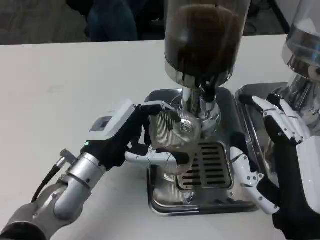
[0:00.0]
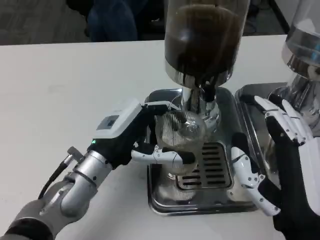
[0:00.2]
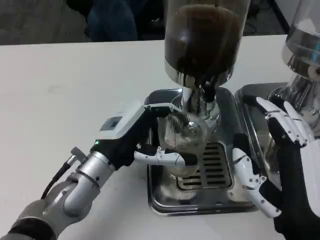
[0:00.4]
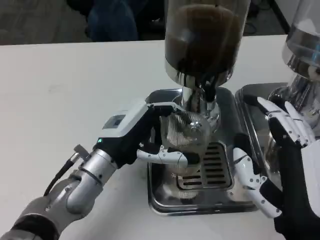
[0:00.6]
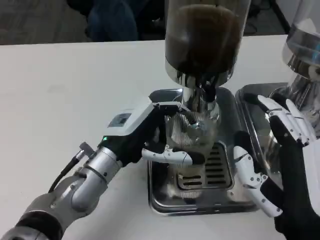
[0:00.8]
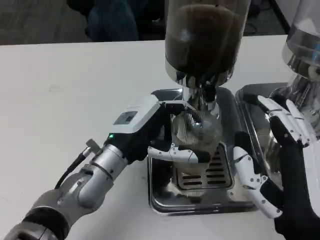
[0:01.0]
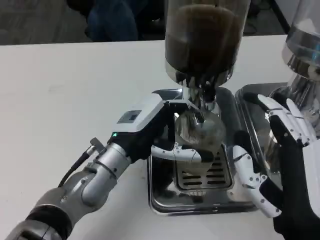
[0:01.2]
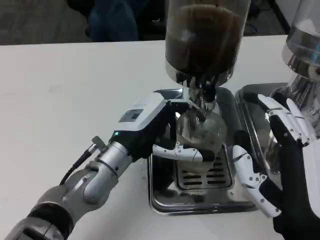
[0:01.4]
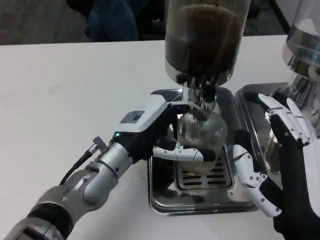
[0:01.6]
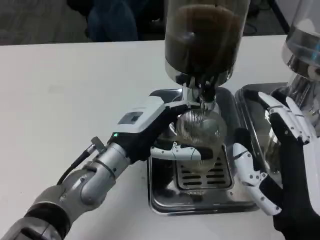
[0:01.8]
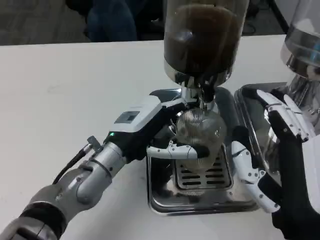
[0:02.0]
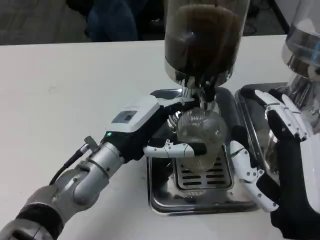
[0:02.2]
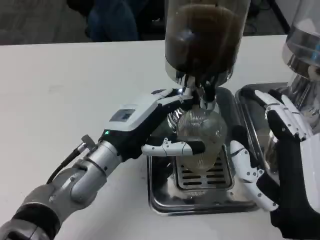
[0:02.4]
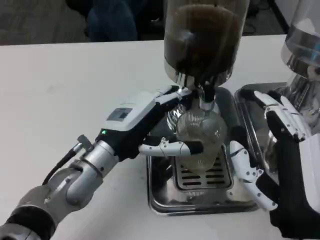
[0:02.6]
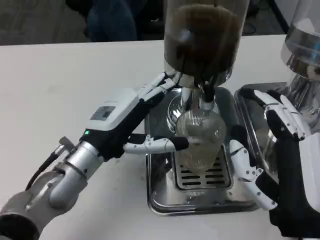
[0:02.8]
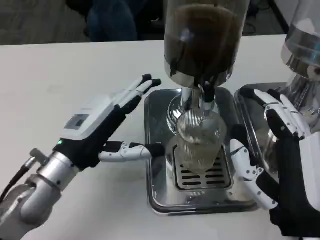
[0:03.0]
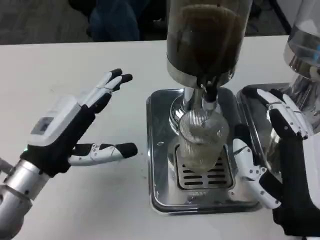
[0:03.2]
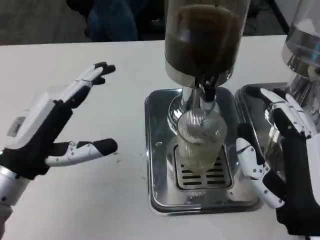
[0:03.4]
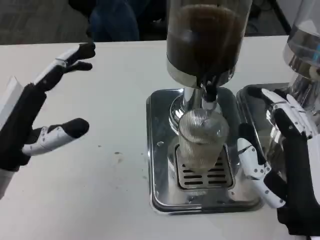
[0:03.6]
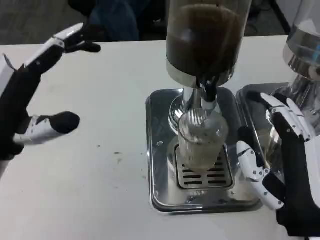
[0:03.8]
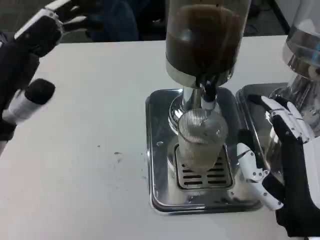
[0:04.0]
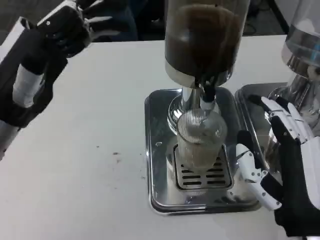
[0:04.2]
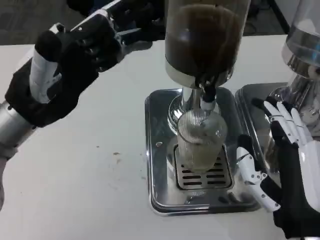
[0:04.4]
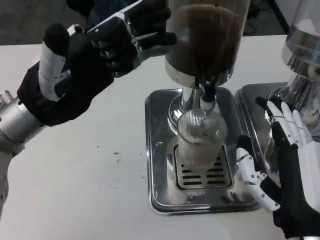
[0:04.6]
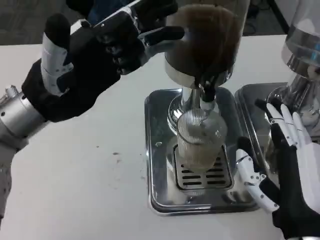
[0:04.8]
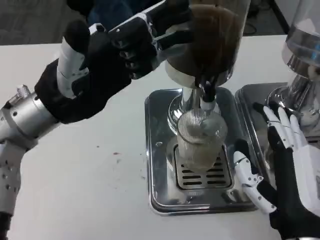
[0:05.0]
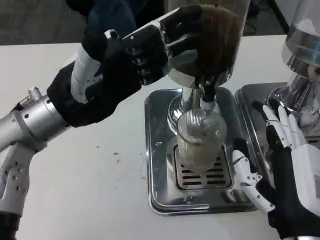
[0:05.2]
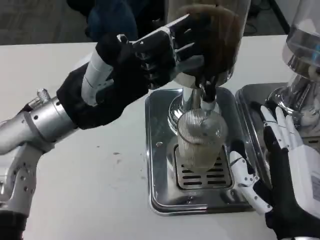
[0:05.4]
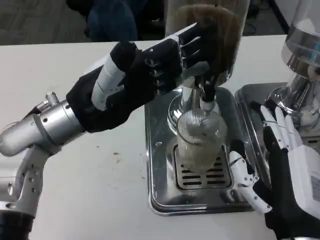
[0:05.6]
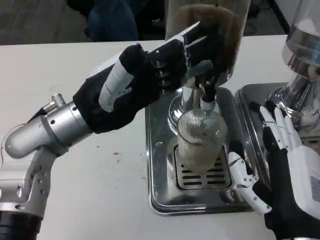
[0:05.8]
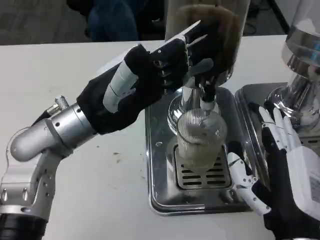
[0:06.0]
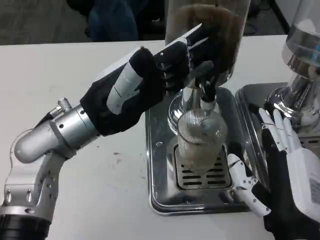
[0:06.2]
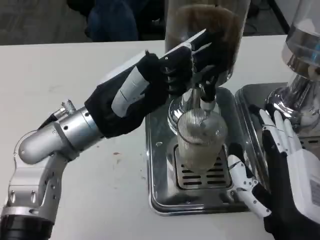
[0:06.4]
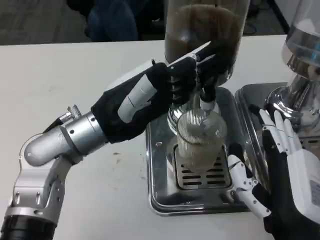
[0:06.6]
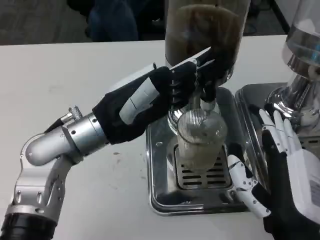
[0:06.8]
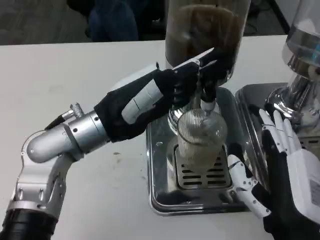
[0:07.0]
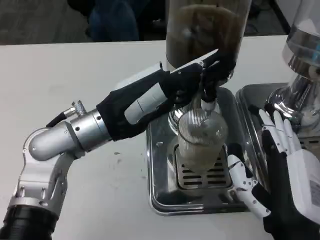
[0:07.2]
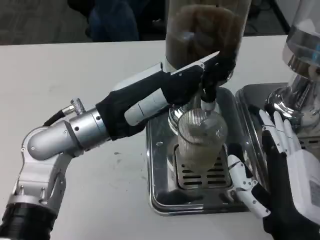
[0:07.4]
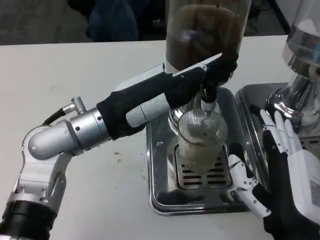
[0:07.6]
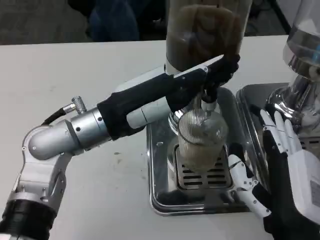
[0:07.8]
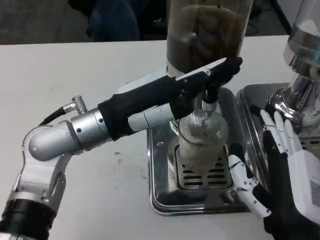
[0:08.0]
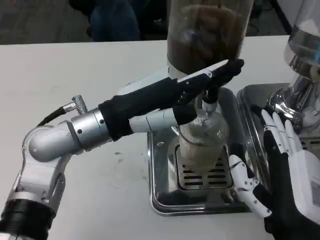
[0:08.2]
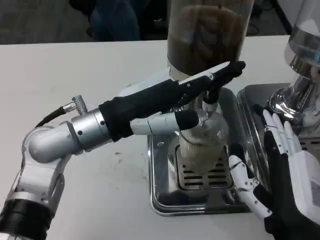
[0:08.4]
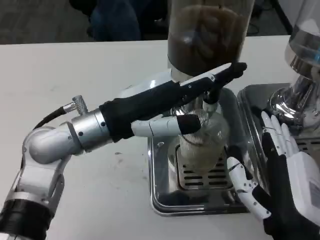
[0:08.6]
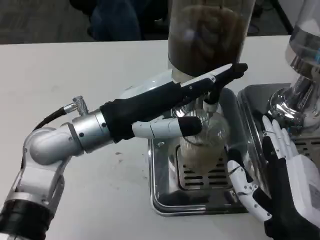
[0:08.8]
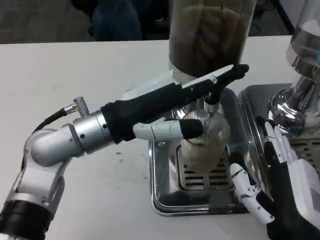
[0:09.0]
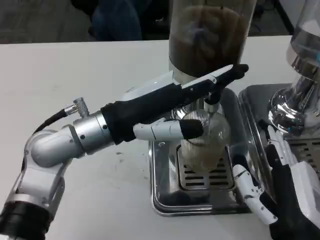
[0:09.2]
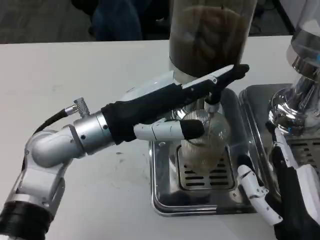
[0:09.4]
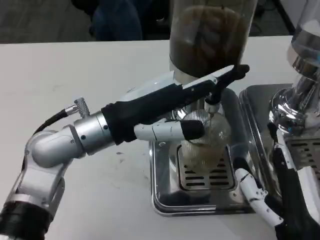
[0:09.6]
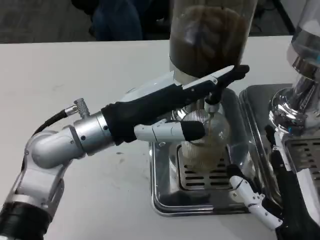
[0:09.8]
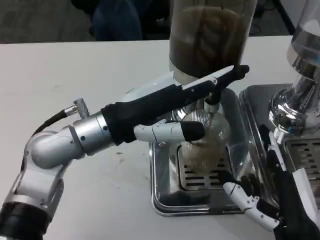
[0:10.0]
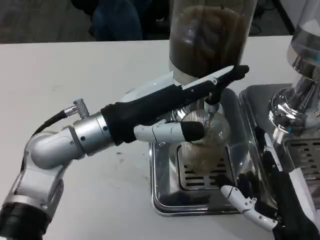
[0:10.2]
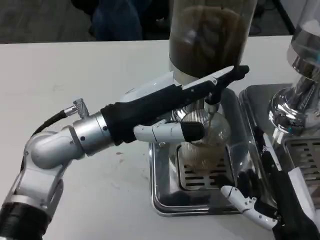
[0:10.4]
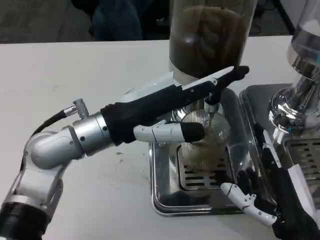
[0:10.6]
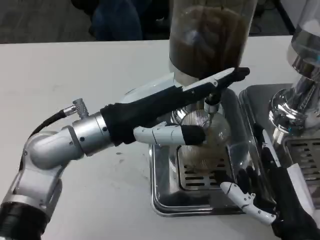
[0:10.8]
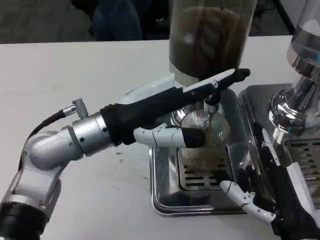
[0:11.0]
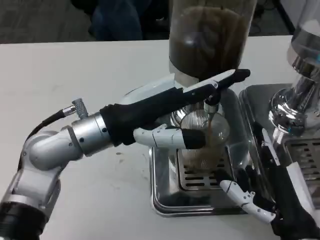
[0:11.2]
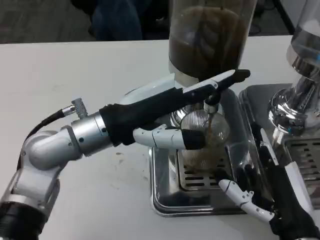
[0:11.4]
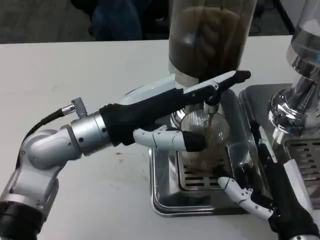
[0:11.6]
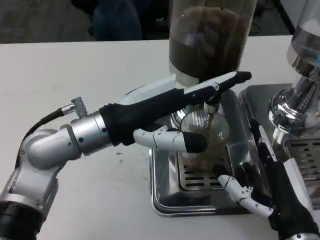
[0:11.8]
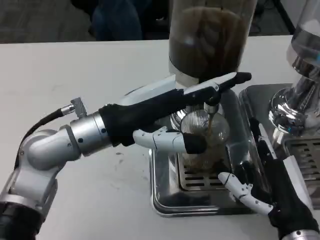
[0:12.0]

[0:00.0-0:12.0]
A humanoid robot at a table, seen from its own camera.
Task of the whole recording: Grasp the cup under the faucet to collect the drink, then remove the cup.
0:01.6 to 0:03.0: The left hand heads to the left, covering roughly 10 cm.
0:03.0 to 0:04.4: The left hand goes some 10 cm upward.
0:04.4 to 0:06.0: The left hand moves to the right, about 5 cm.
0:09.0 to 0:12.0: The hands stay close to where they were, moving slightly.

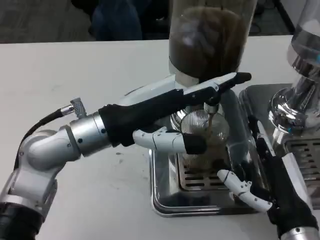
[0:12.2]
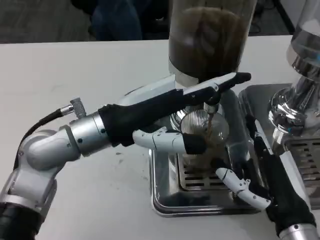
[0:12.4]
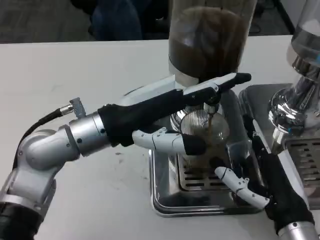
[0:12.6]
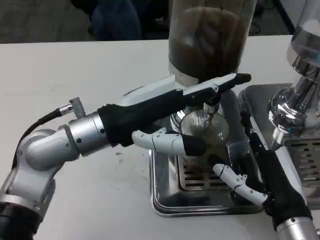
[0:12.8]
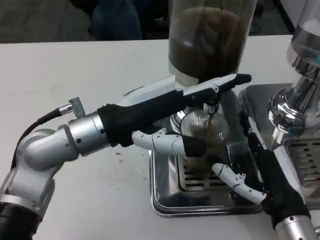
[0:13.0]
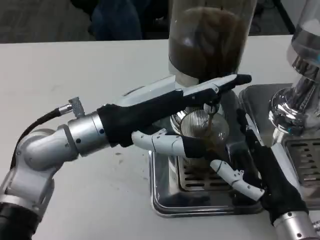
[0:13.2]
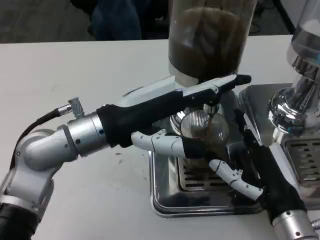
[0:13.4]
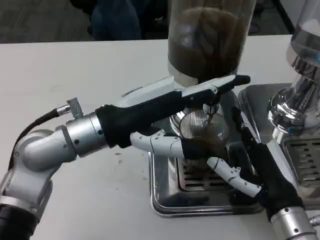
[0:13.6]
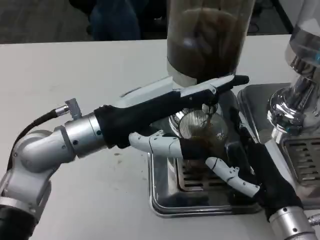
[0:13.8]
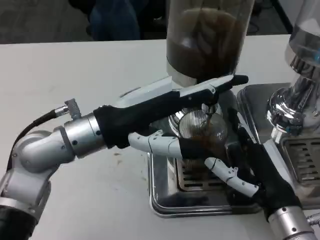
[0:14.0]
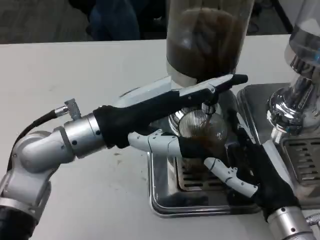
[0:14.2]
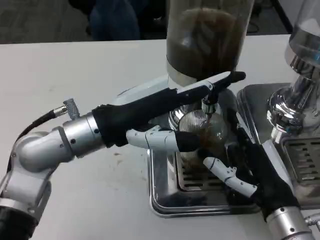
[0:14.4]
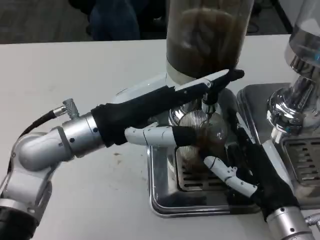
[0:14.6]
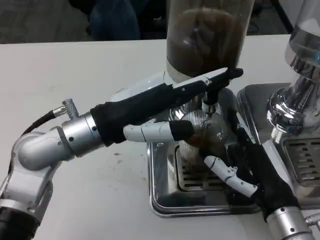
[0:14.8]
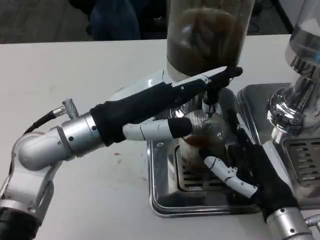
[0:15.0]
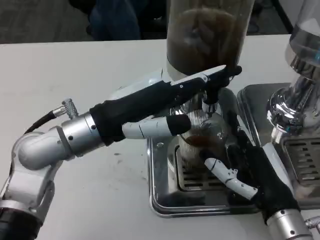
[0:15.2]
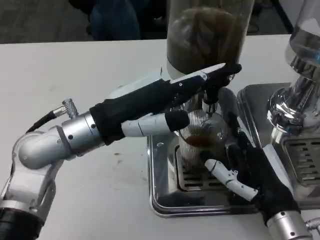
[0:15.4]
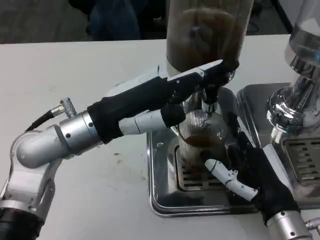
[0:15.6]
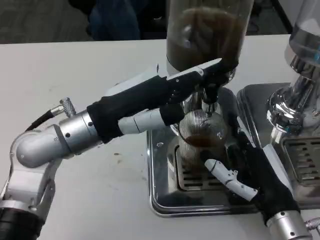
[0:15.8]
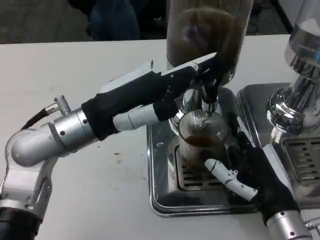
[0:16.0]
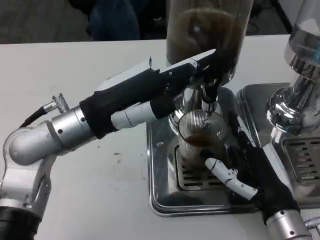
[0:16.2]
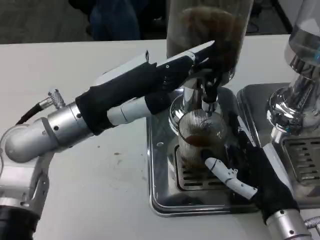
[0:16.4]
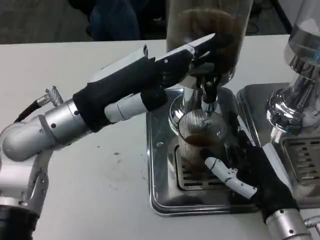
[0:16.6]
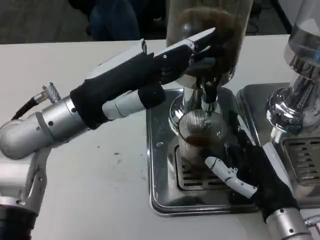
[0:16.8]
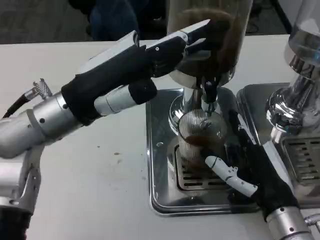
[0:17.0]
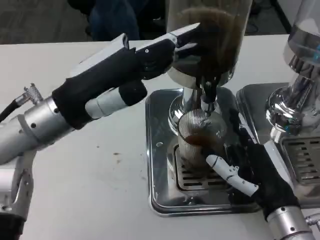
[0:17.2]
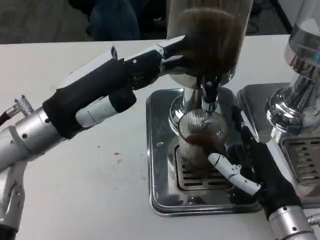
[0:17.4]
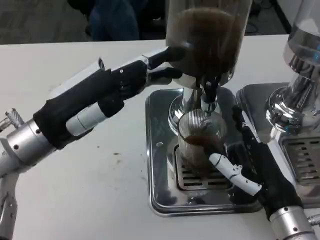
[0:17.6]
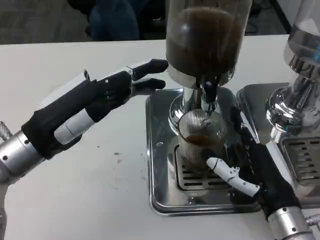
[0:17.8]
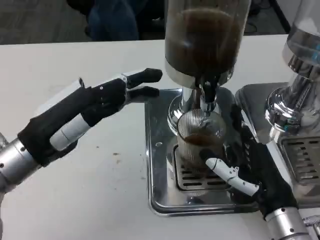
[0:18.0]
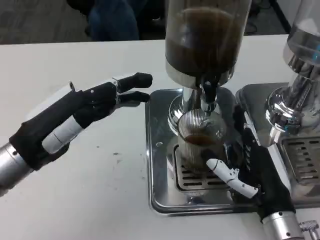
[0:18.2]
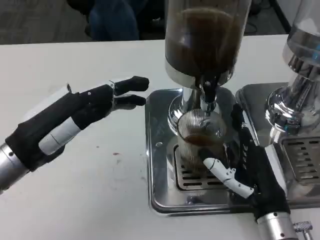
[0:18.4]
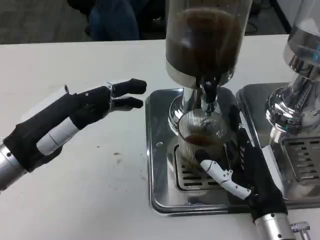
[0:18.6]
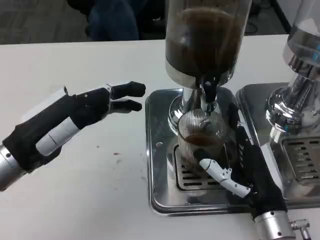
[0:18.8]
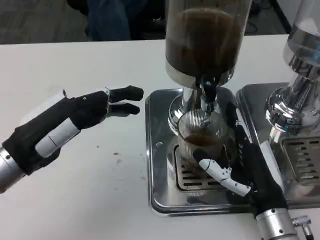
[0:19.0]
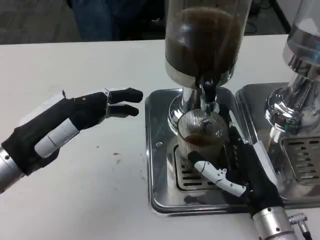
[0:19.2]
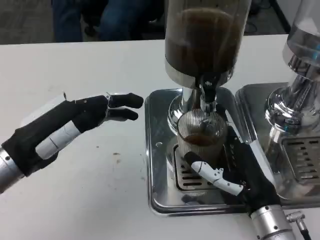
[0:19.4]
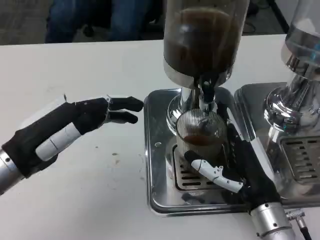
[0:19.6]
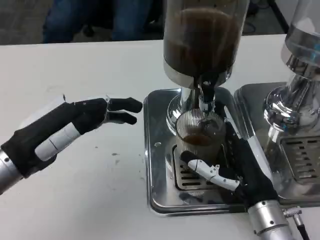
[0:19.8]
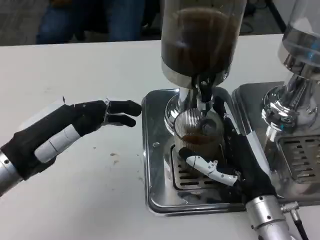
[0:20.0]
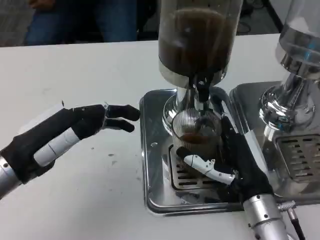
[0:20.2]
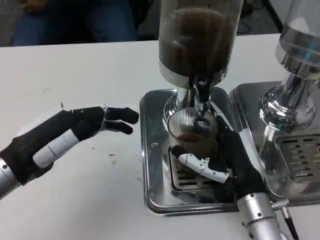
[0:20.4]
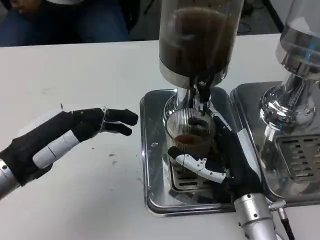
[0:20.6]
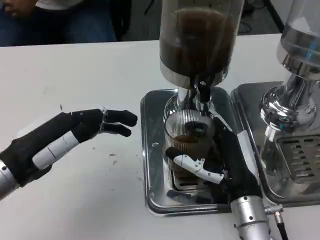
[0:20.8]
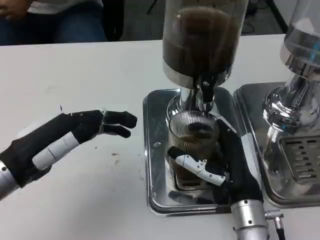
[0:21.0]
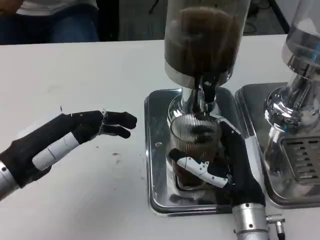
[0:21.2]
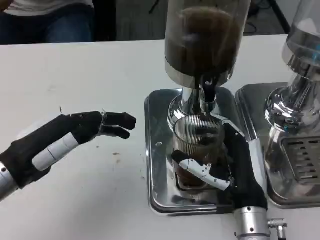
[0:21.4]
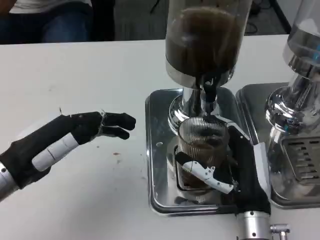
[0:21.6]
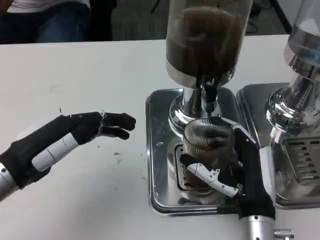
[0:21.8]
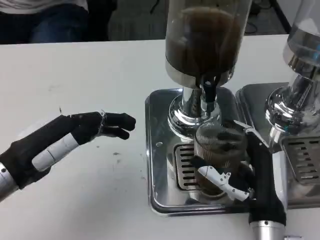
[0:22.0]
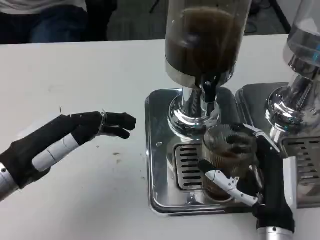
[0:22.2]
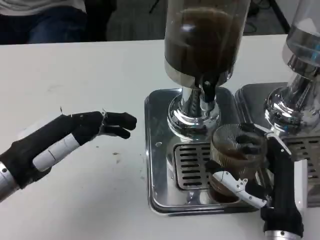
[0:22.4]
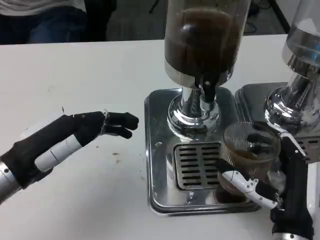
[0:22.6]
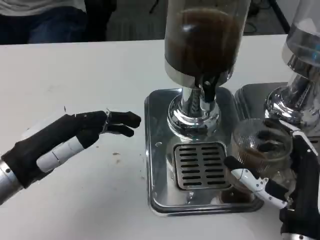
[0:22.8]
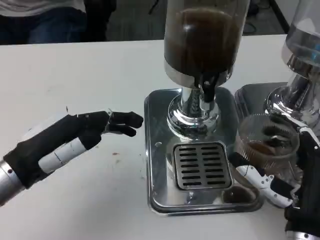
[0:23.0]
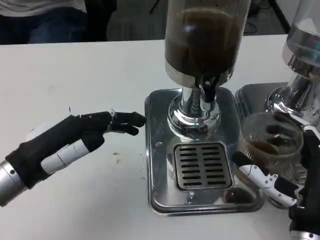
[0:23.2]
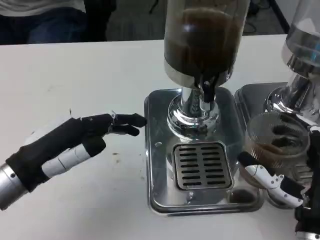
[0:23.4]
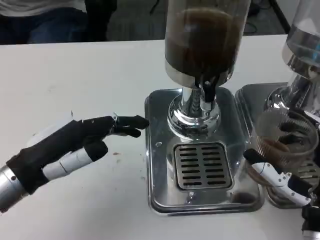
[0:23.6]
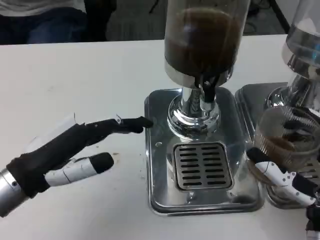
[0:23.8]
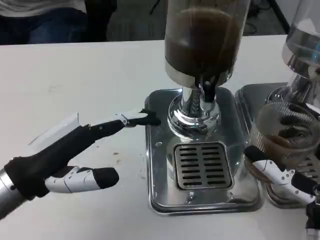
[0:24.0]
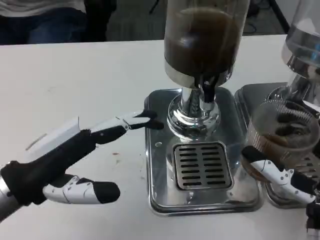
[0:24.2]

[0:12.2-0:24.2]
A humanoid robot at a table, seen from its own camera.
Task of the whole recording: Grasp the cup under the faucet to collect the drink, then remove the cup.
0:12.2 to 0:15.2: The hands move only a little.
0:16.6 to 0:18.2: The left hand shifts about 5 cm to the left.
0:21.2 to 0:22.6: The right hand ends up some 5 cm from where it was.
0:22.6 to 0:24.2: The right hand ends up some 5 cm from where it was.
